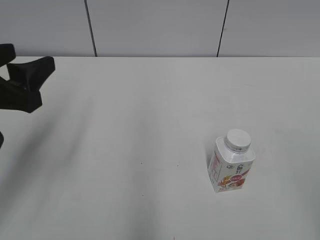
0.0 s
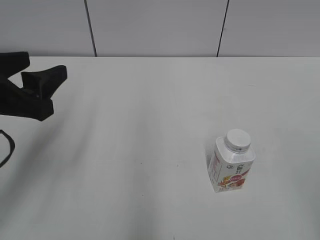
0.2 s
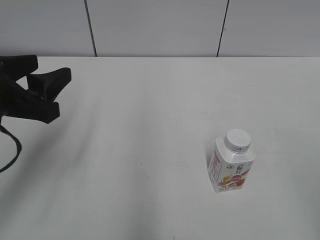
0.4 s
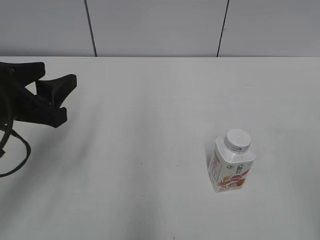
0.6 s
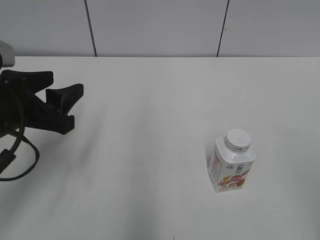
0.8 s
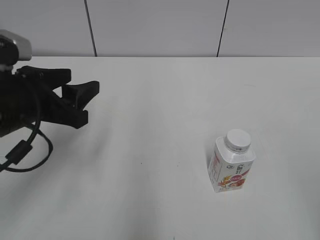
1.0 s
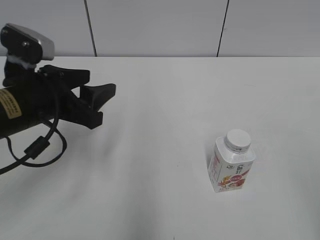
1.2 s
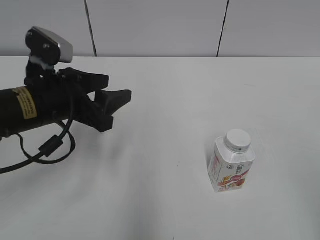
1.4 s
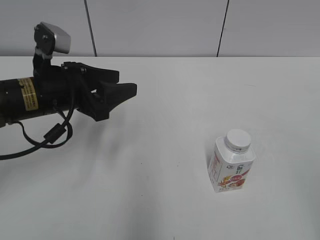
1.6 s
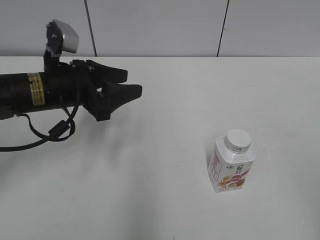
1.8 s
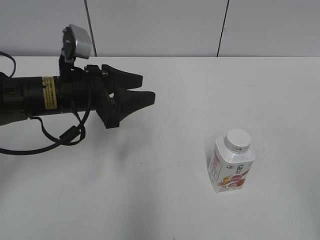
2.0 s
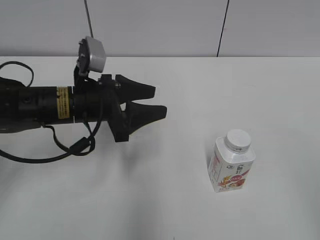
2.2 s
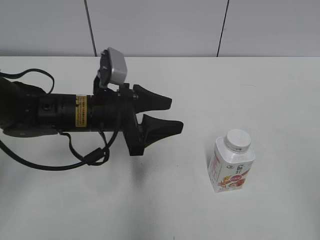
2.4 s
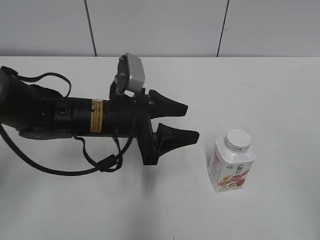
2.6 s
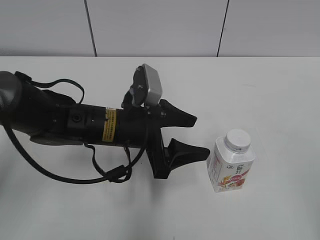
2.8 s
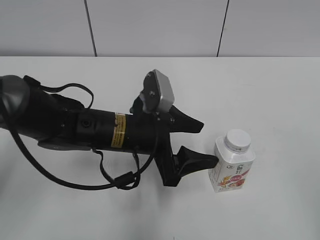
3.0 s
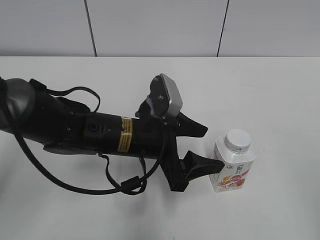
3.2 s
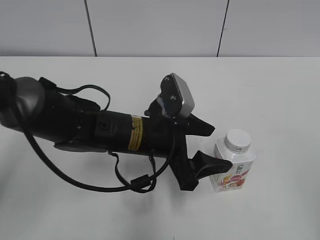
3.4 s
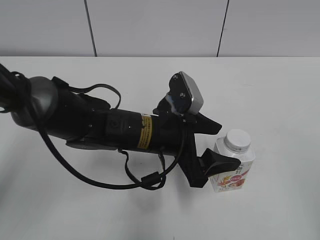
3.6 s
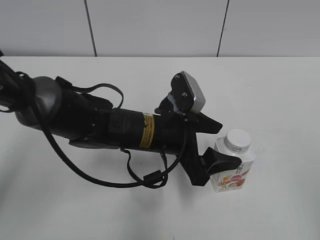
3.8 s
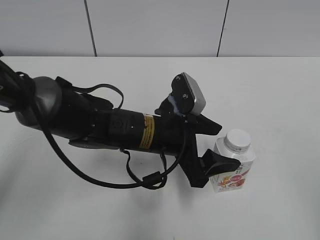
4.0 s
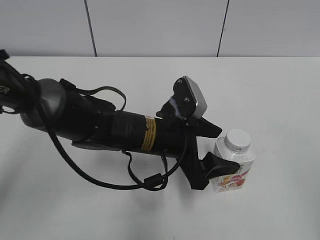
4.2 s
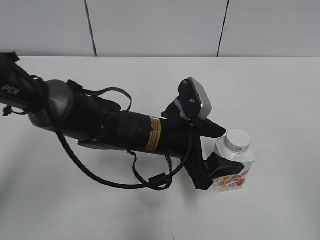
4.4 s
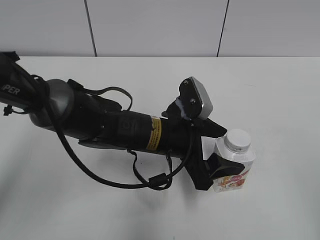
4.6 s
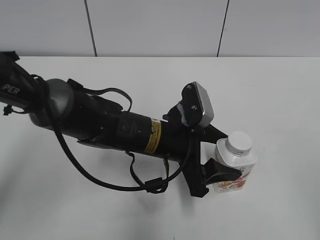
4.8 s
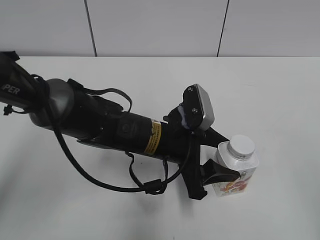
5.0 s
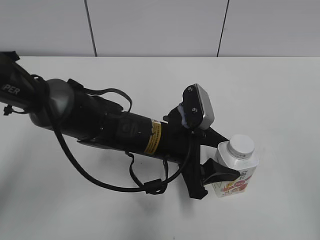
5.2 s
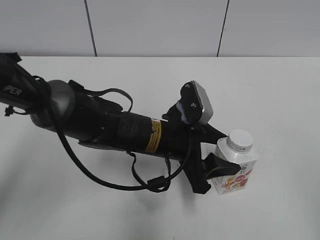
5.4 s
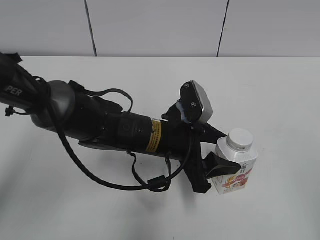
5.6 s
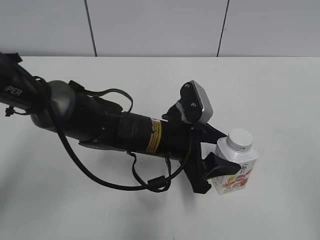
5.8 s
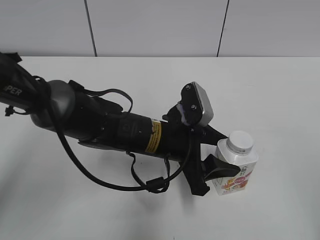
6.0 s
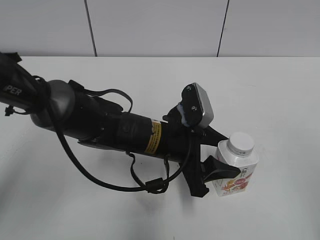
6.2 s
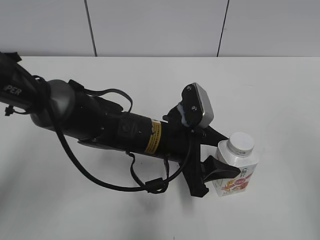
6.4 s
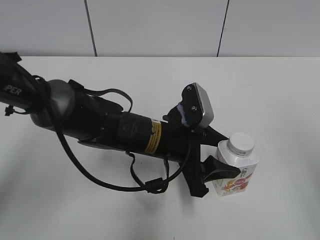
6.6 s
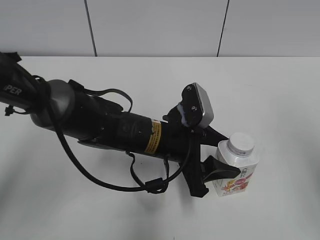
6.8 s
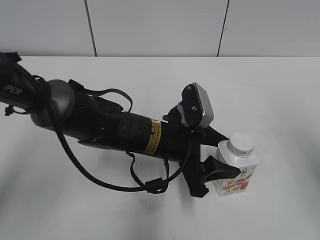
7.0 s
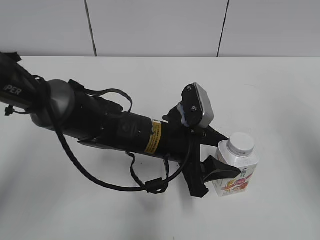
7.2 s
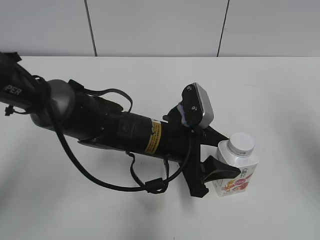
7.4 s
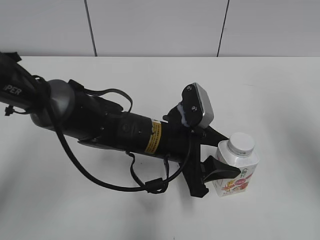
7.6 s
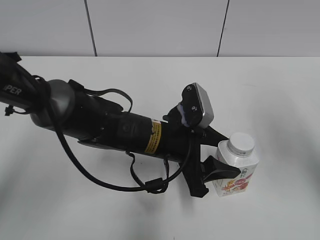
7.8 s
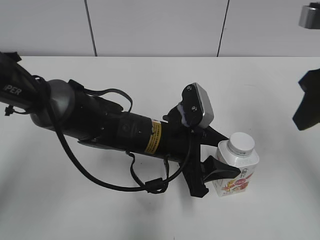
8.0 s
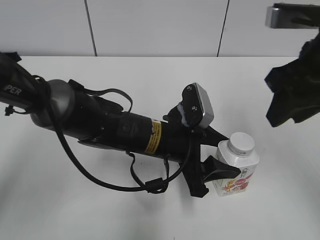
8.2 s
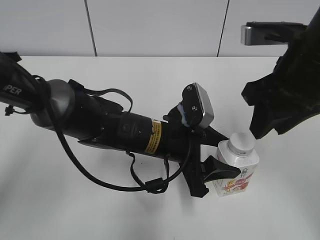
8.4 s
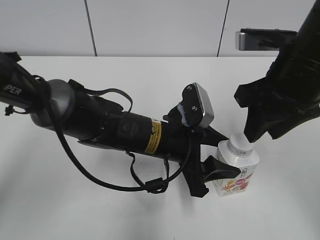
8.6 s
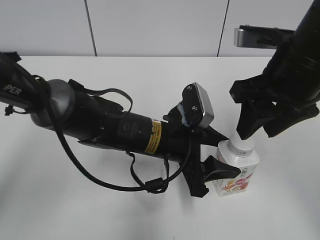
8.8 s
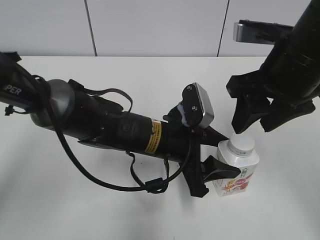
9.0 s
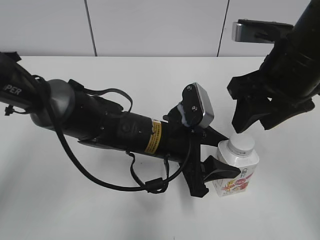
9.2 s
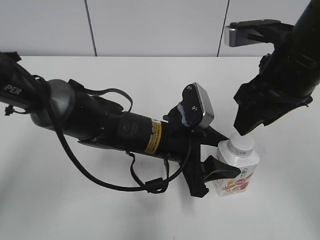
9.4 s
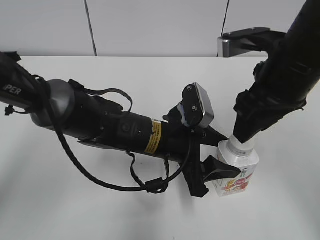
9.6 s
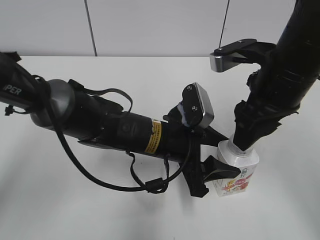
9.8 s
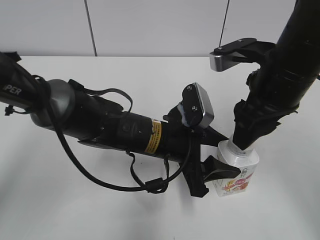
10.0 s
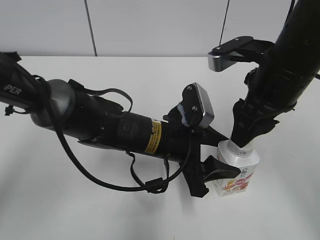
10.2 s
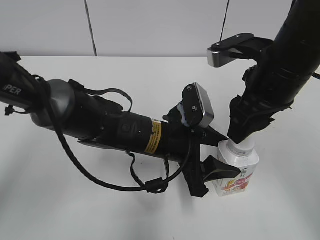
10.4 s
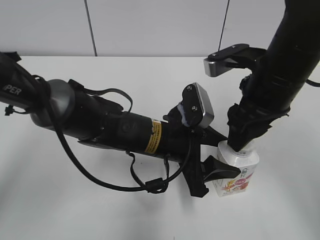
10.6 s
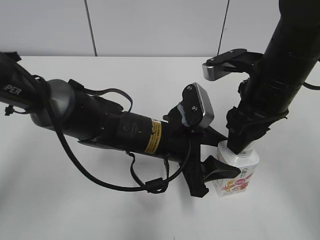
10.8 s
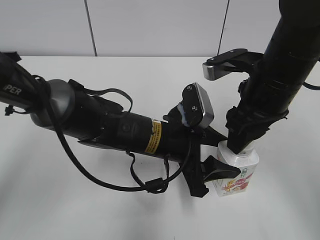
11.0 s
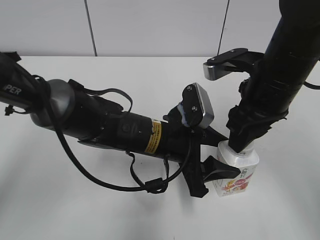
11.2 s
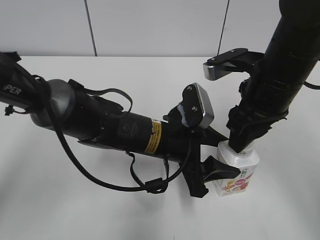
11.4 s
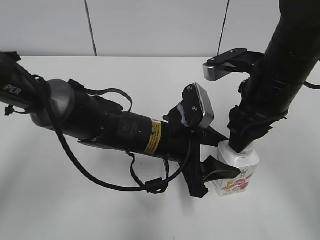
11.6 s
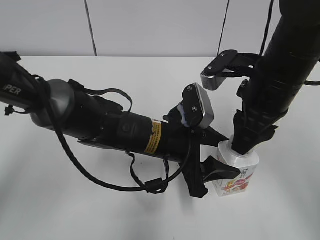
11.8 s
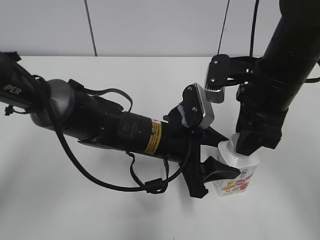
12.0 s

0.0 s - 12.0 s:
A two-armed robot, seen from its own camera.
Step, 0.0 s - 6.8 s: Grab the Yili Changqing with the left hand.
0.0 s - 1.6 s: The left gripper shifts about 10 cm forward, to the right and downward, and closes its fingers.
1.6 s - 3.0 s: The left gripper travels to the right and downward by about 15 cm, and opens.
3.0 s - 4.4 s: The left gripper moves about 5 cm.
4.4 s - 6.0 s: The left gripper closes its fingers.
6.0 s - 7.6 s: The right gripper heads forward, covering roughly 20 cm, and closes up.
7.6 s - 9.0 s: The right gripper heads to the left and forward, covering approximately 15 cm, and opens its fingers.

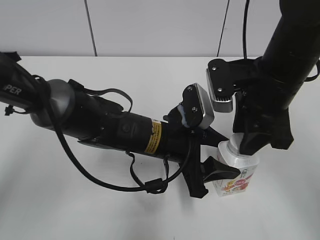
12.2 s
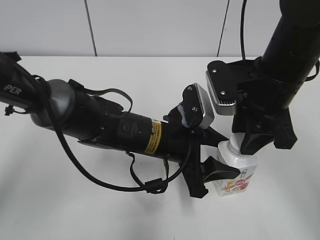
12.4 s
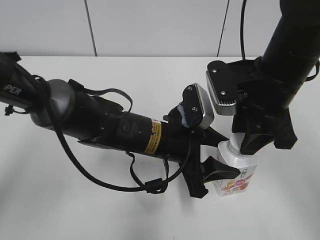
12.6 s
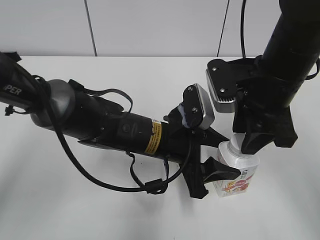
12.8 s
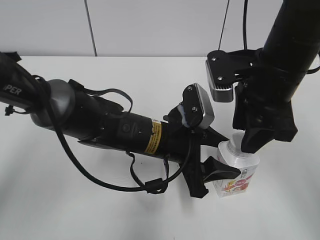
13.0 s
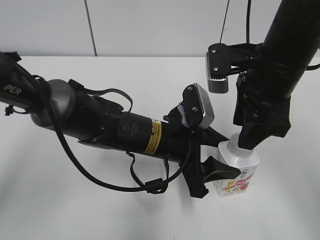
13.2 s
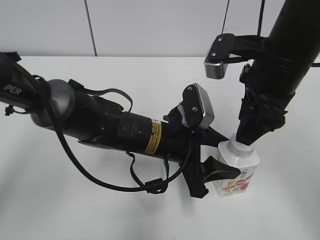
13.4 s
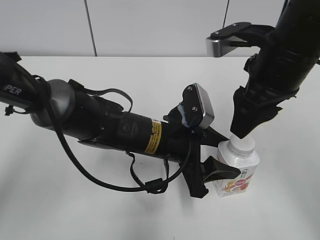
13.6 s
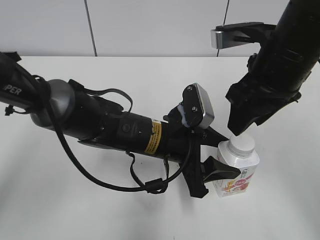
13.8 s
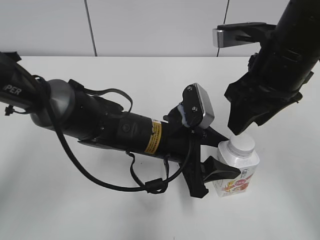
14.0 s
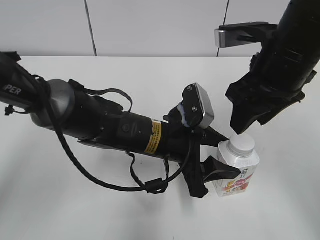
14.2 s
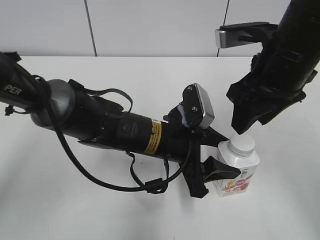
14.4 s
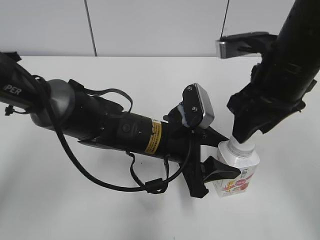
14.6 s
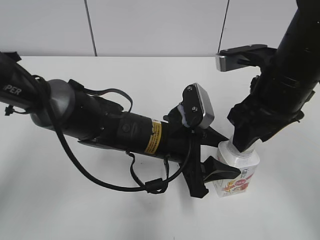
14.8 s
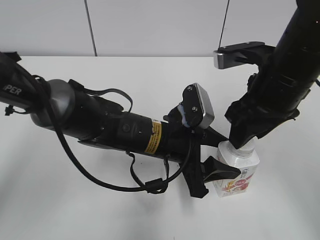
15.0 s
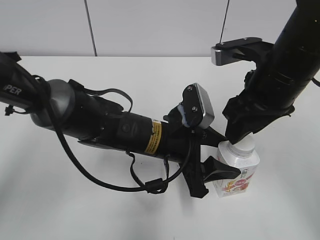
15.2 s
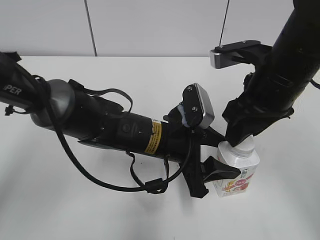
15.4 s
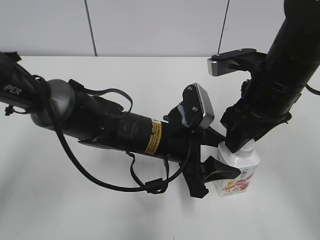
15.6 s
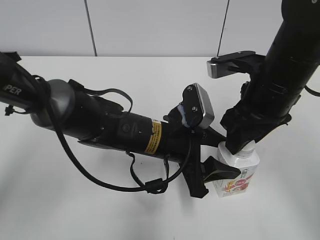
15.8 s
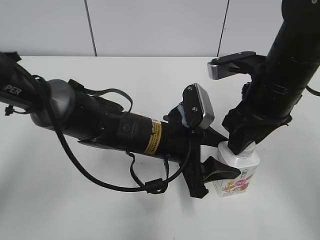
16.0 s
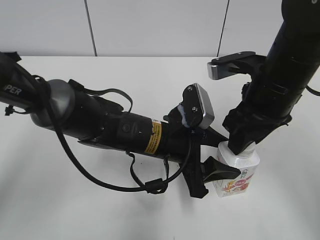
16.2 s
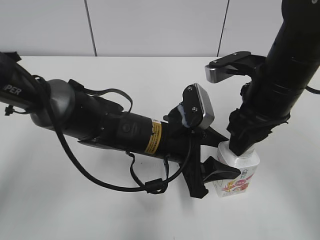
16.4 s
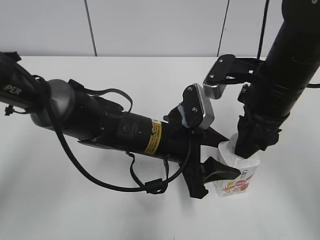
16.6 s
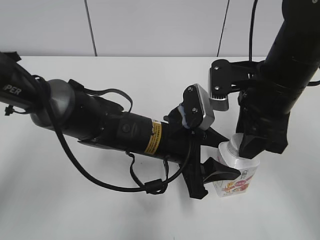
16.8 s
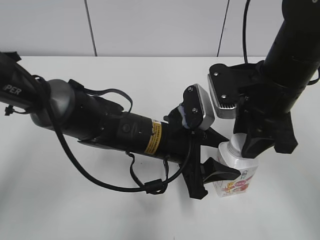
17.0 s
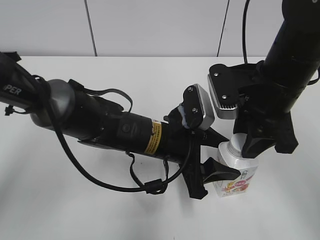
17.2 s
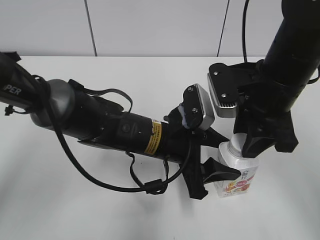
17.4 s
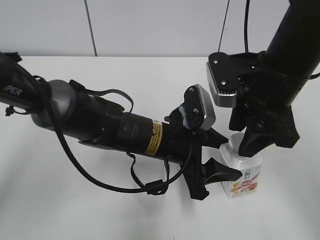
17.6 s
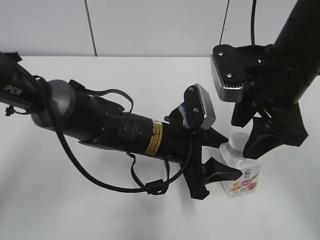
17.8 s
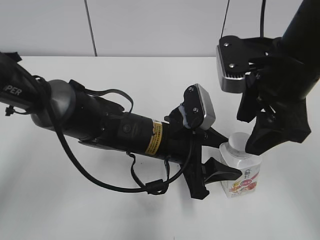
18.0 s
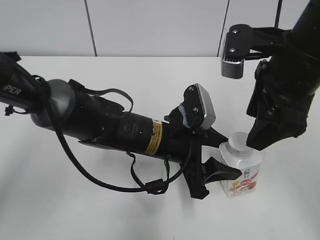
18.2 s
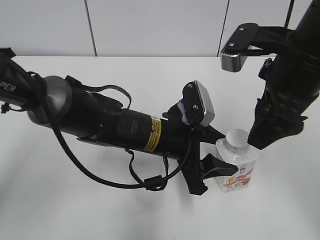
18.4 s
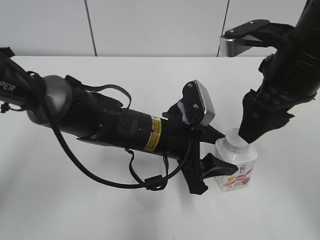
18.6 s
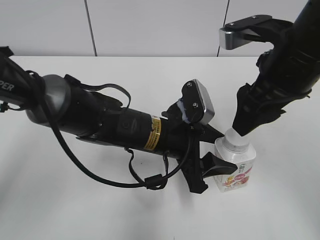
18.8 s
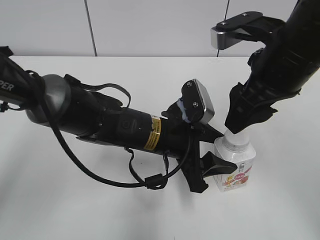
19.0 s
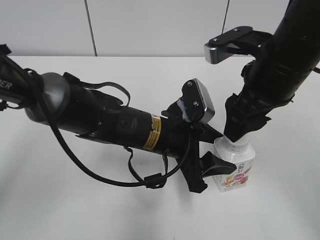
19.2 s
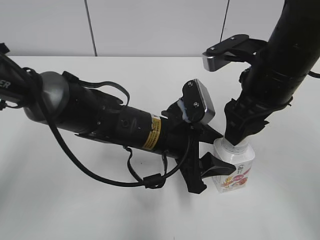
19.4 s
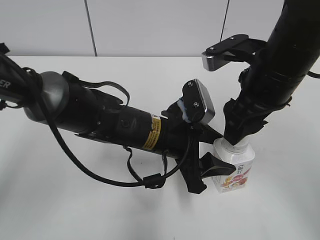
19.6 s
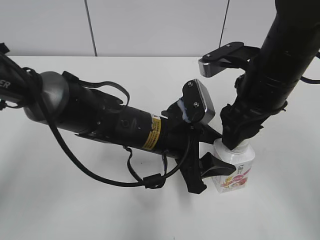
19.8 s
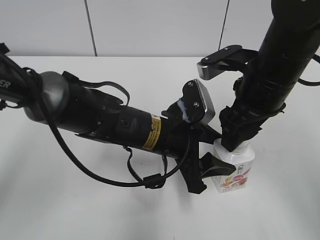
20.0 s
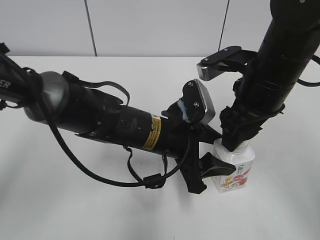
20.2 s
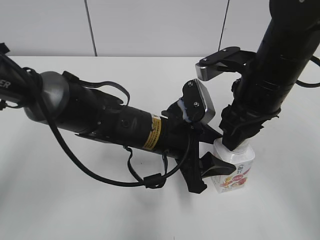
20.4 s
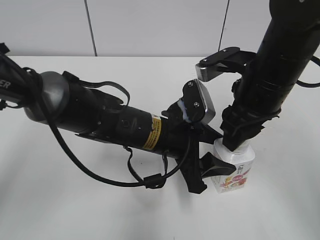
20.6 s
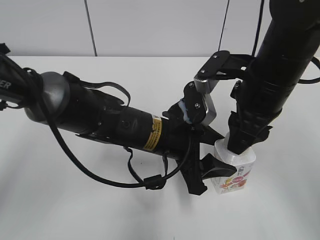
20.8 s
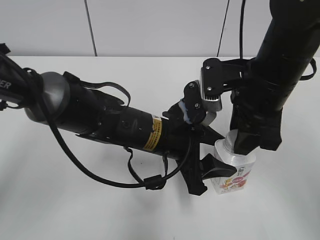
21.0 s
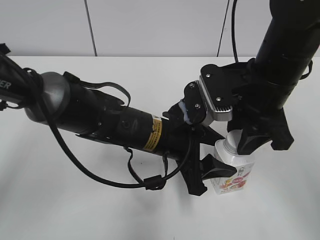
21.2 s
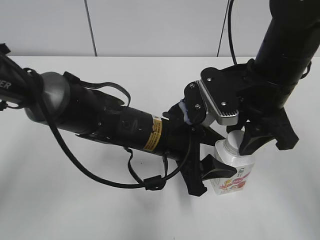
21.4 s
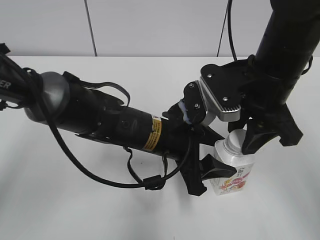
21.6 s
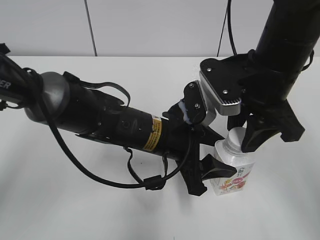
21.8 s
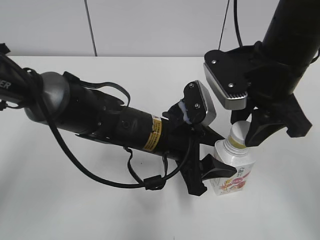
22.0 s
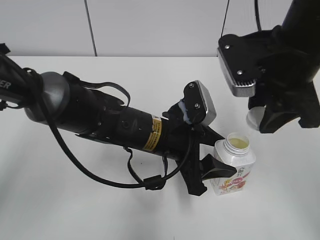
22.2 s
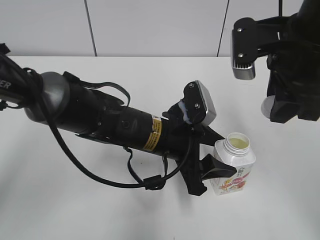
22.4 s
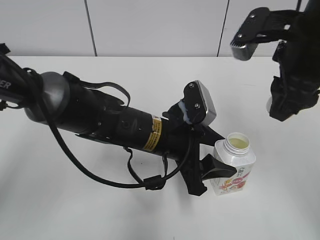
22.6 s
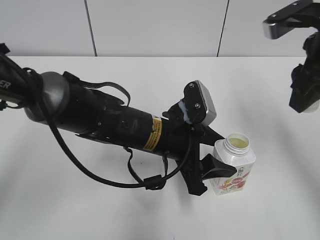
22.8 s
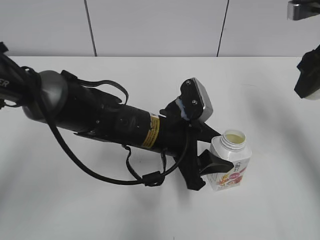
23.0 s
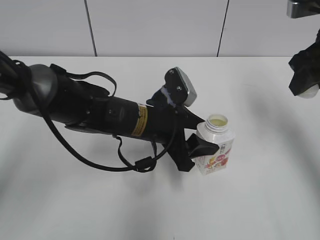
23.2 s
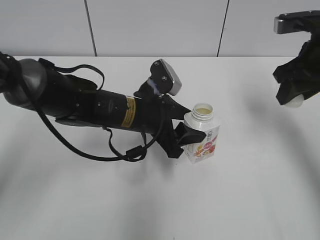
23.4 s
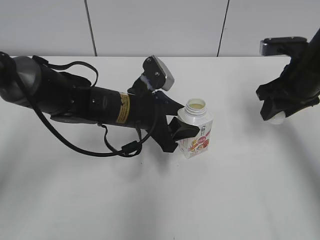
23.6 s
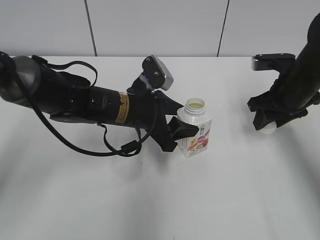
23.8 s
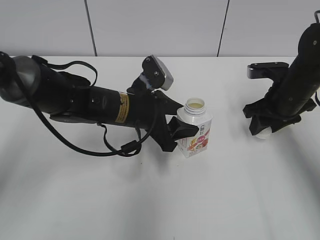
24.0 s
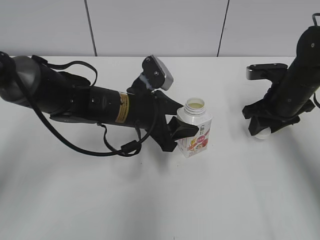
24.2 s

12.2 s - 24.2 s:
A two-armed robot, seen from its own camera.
13.8 s - 15.2 s: There are only small adjustments of the grippers.
16.6 s - 18.2 s: The right gripper shifts some 5 cm upward, and opens its fingers.
18.2 s - 19.8 s: The right gripper ends up some 5 cm from where it was.
19.8 s - 21.2 s: The right gripper closes its fingers.
21.2 s - 22.6 s: The right gripper travels upward by about 5 cm.
22.6 s - 24.2 s: The right gripper is displaced downward, forward and to the right by some 20 cm. The left gripper travels forward and to the left by approximately 10 cm.
